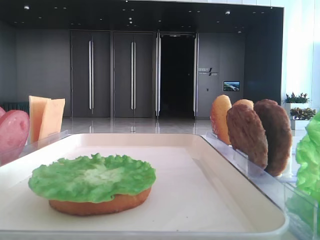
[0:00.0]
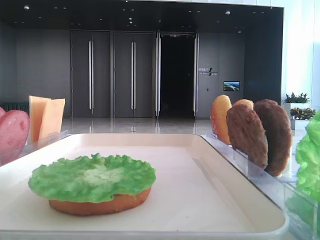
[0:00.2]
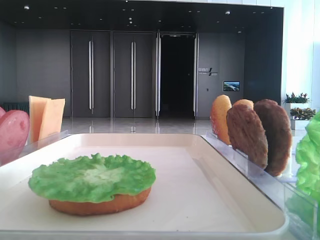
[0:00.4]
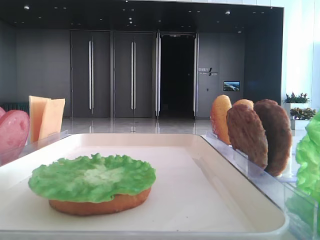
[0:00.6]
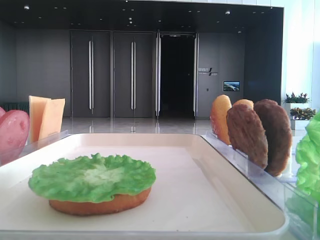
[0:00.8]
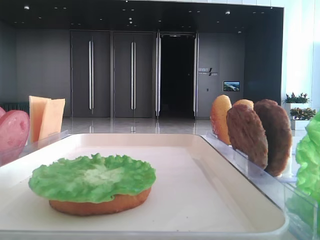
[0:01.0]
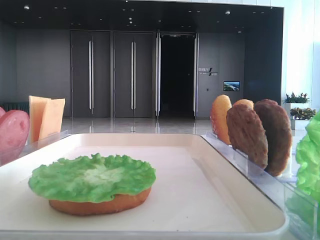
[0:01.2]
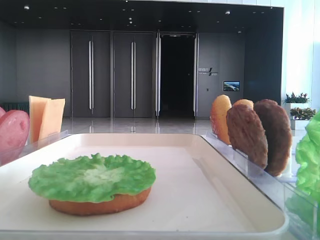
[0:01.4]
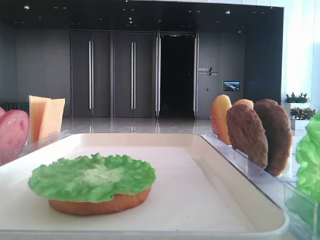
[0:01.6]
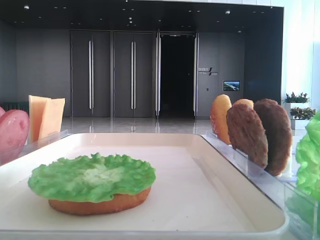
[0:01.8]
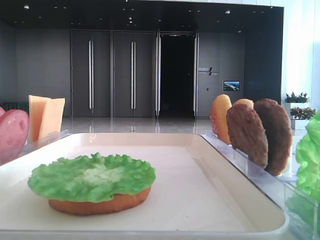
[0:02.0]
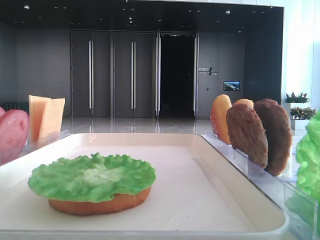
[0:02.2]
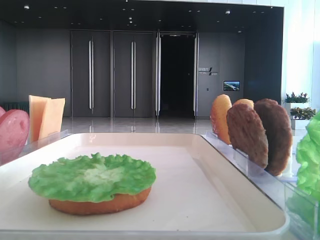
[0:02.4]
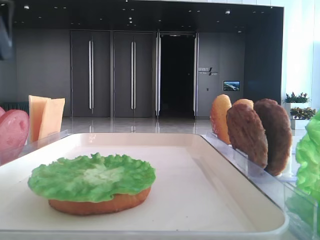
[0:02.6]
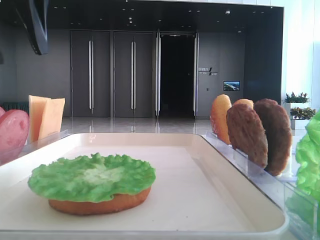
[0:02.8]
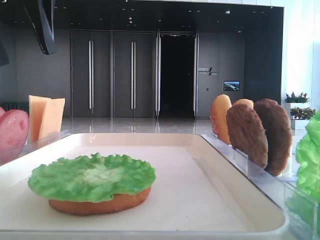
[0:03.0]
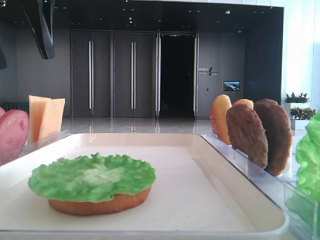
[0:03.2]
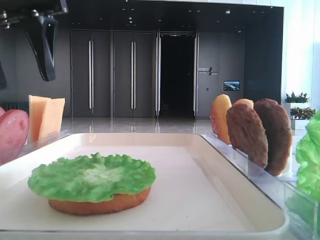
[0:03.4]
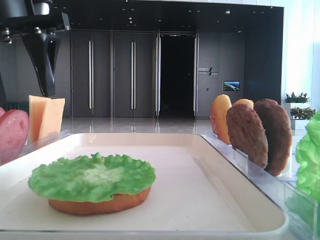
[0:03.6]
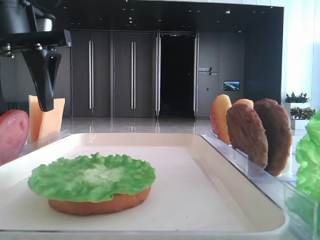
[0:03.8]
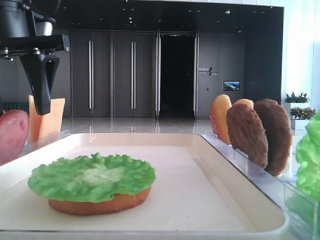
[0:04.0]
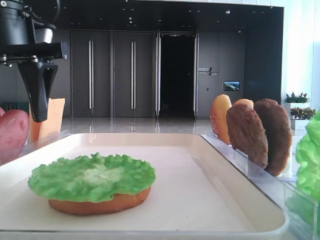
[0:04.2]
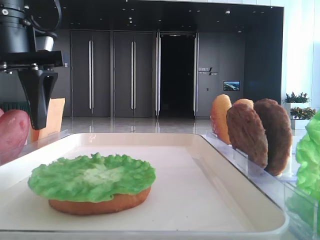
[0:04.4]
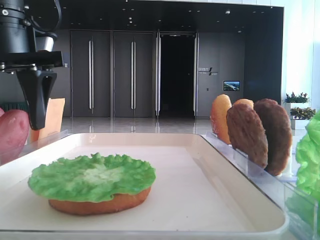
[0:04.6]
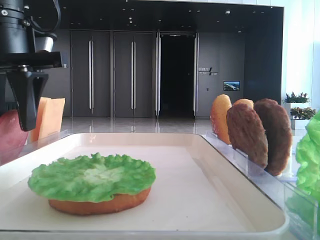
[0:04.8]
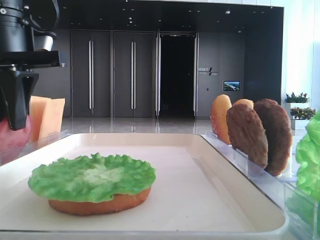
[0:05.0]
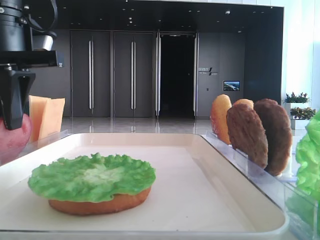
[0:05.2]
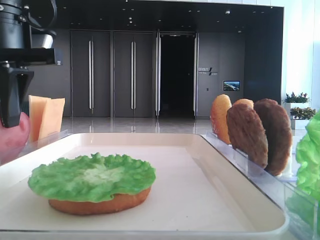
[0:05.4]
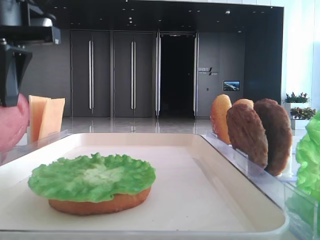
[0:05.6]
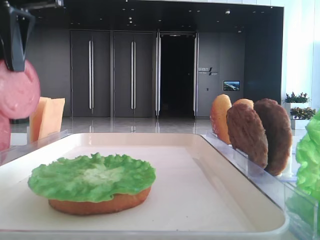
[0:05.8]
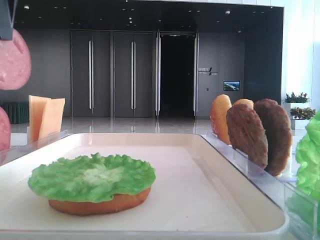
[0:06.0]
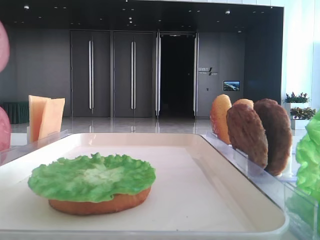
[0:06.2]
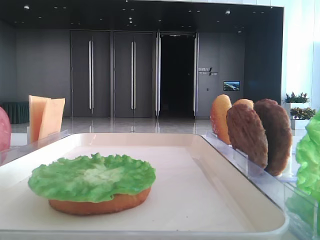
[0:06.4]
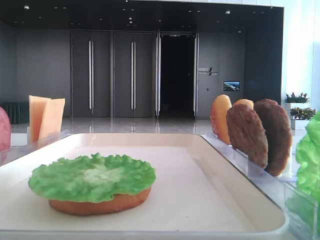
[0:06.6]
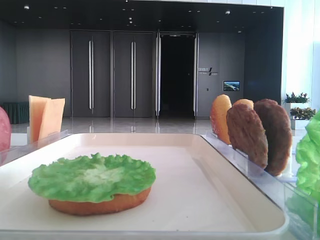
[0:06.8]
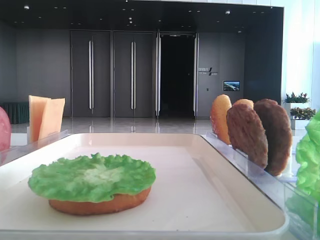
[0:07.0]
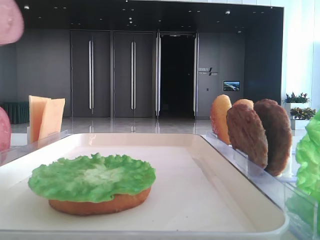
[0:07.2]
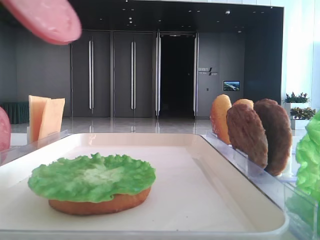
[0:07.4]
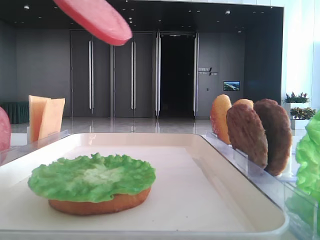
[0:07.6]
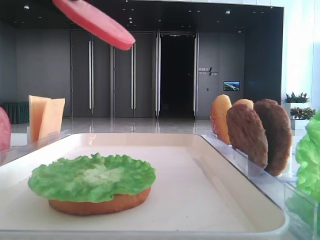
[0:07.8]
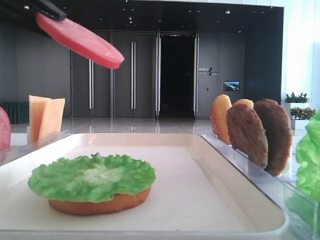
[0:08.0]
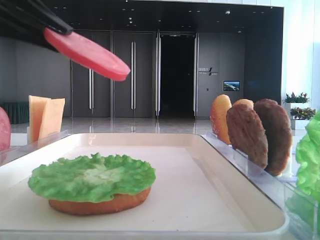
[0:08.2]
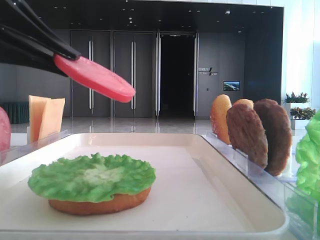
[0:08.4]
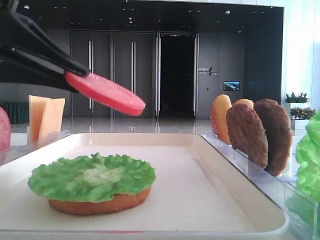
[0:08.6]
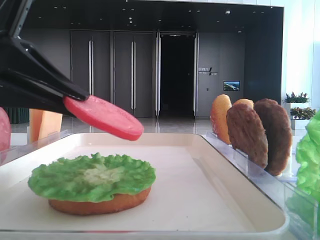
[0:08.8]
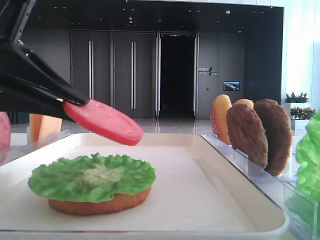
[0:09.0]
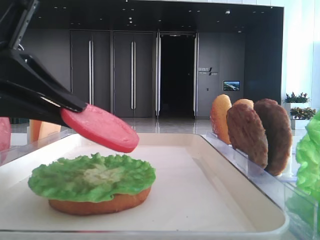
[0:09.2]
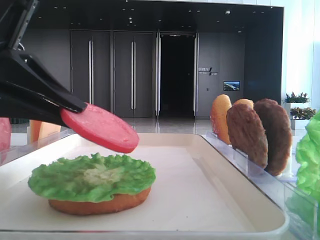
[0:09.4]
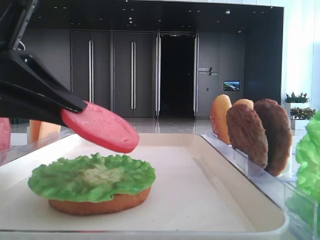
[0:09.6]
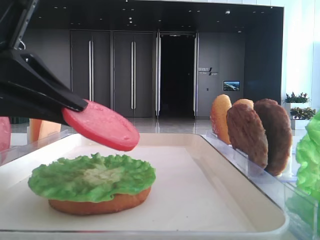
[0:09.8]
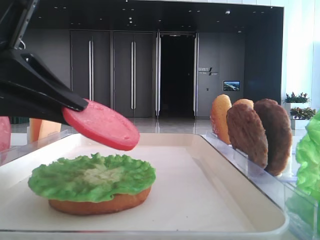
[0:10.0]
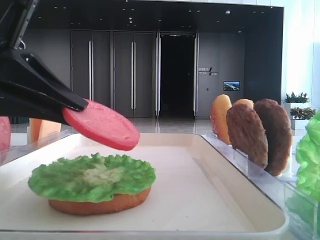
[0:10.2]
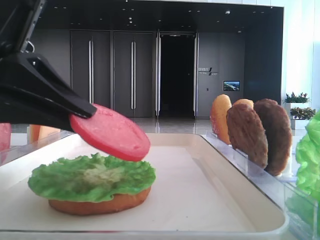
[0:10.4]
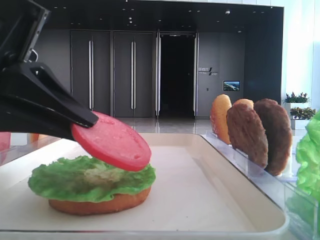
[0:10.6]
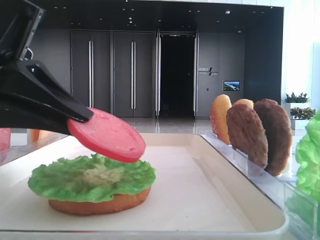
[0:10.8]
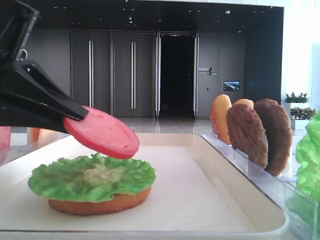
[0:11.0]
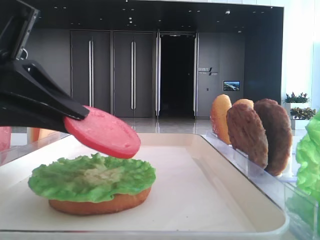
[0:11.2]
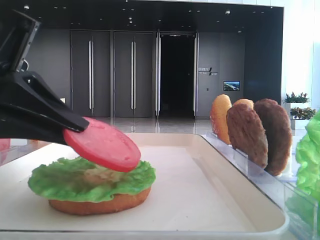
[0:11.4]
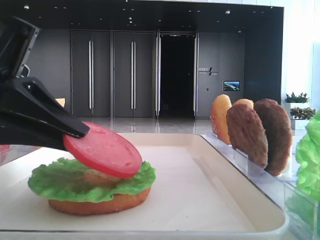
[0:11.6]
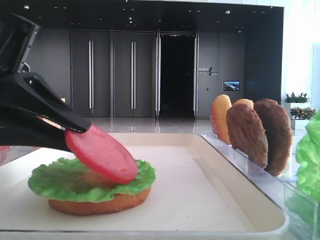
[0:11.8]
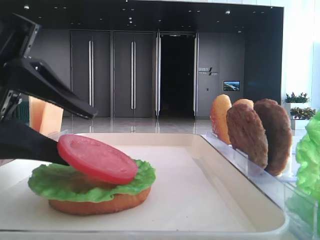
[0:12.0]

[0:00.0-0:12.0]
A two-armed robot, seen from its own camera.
Step, 0:00.0 to 0:05.2: Pick up the tomato slice with the left hand.
0:01.6 to 0:03.0: The left gripper heads to the right and forward, covering about 20 cm, and opens.
0:03.0 to 0:04.4: The left gripper shifts approximately 10 cm downward.
0:04.4 to 0:06.0: The left gripper heads upward, covering about 10 cm, and closes.
0:06.0 to 0:07.6: The left gripper moves backward, approximately 10 cm.
0:07.6 to 0:09.0: The left gripper moves downward, some 15 cm.
0:09.0 to 0:10.4: The grippers stay close to where they were, moving slightly.
0:10.4 to 0:12.0: The left gripper opens.

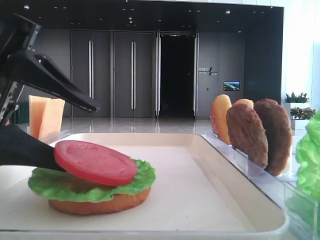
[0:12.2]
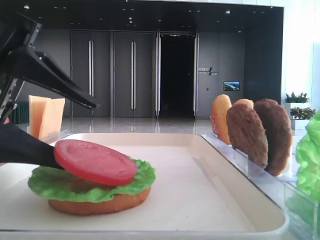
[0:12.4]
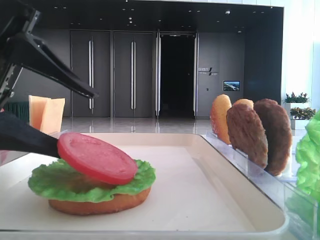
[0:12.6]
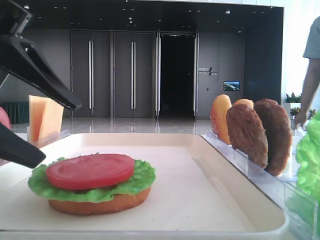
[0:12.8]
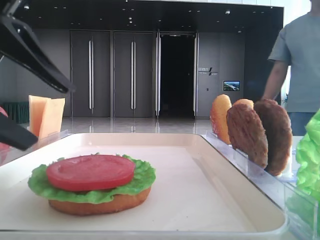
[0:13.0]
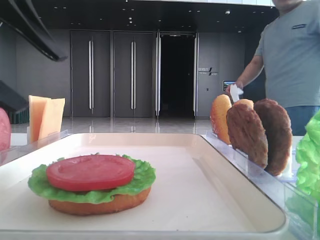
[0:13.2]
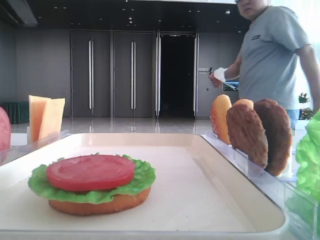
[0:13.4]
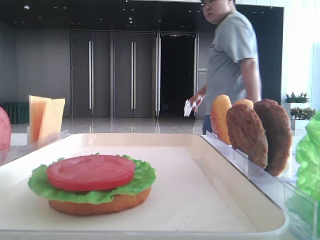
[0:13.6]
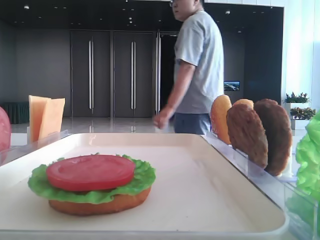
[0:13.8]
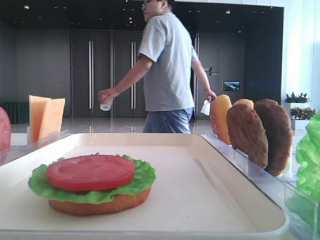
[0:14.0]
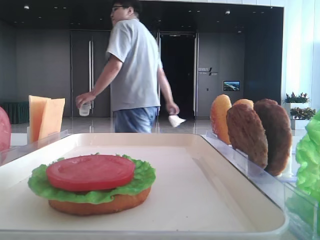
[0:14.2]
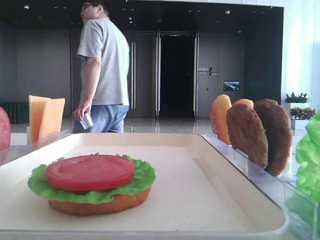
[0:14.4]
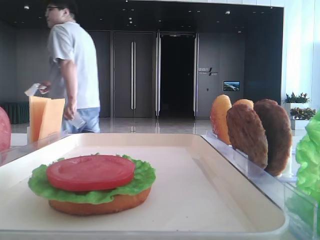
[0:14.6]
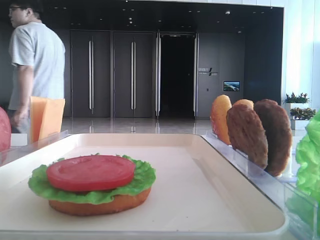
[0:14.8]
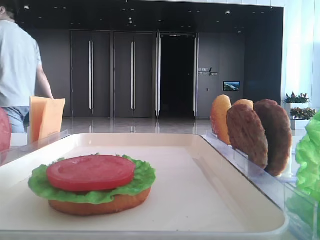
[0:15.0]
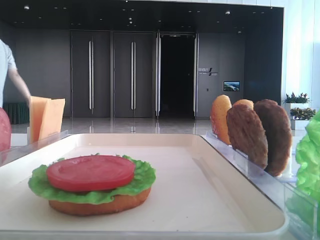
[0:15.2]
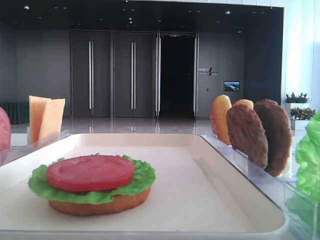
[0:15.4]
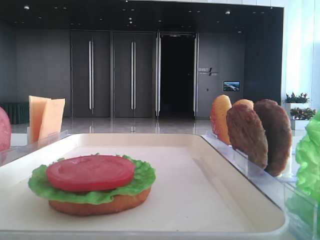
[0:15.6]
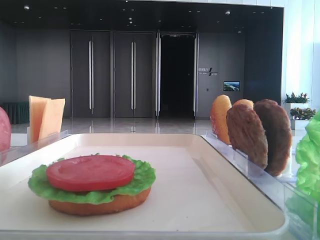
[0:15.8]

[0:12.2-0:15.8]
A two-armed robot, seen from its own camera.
0:12.2 to 0:14.0: The left gripper goes about 20 cm upward and to the left.
0:14.0 to 0:15.8: The left gripper travels backward by roughly 20 cm.

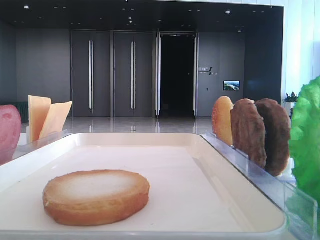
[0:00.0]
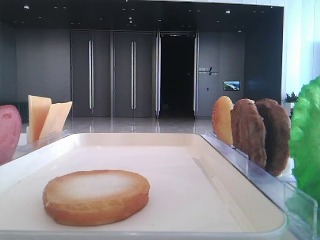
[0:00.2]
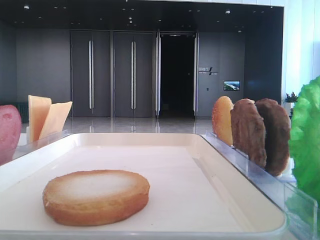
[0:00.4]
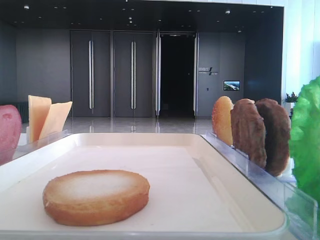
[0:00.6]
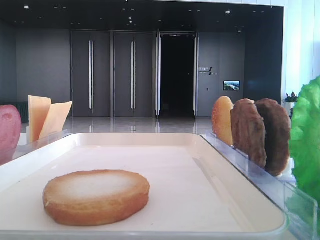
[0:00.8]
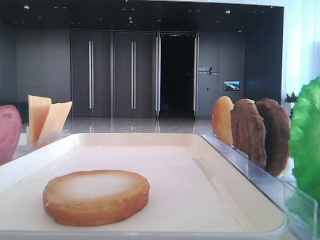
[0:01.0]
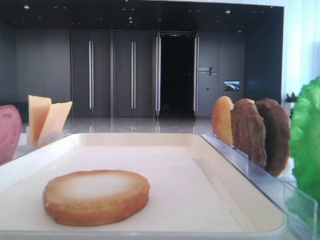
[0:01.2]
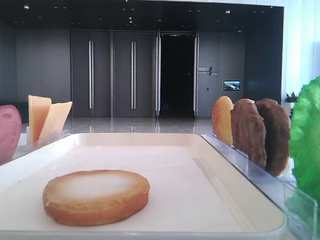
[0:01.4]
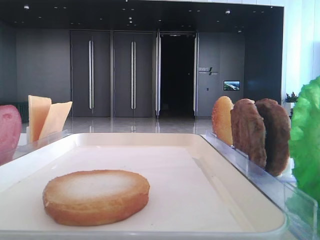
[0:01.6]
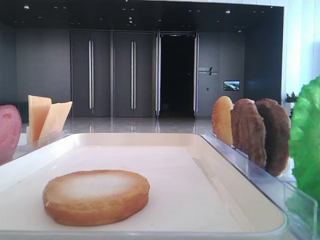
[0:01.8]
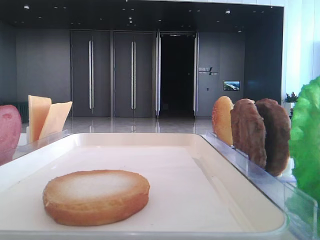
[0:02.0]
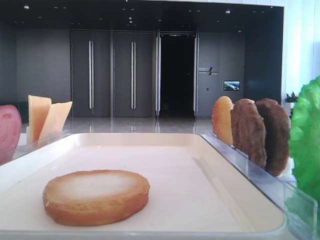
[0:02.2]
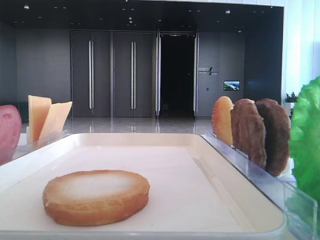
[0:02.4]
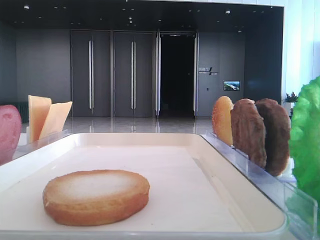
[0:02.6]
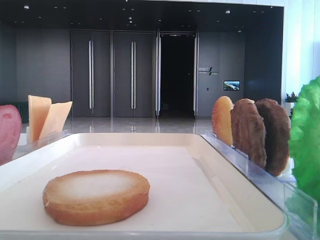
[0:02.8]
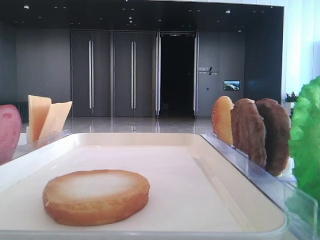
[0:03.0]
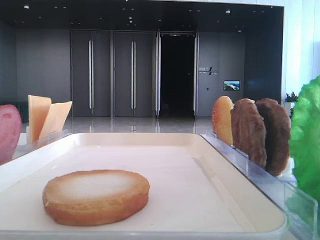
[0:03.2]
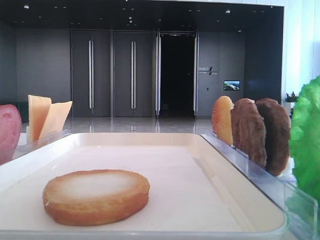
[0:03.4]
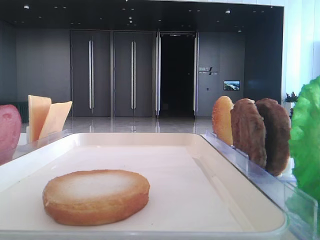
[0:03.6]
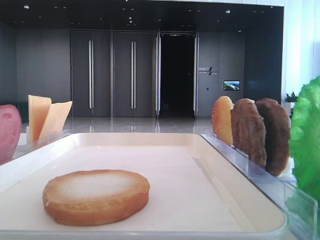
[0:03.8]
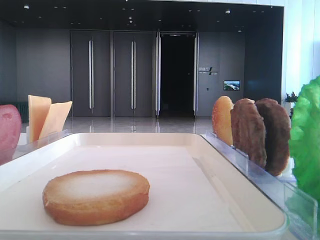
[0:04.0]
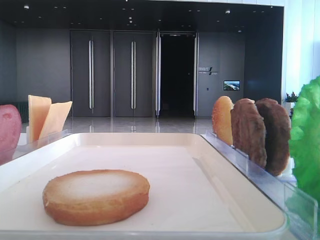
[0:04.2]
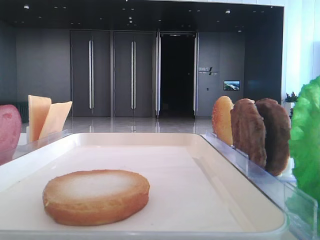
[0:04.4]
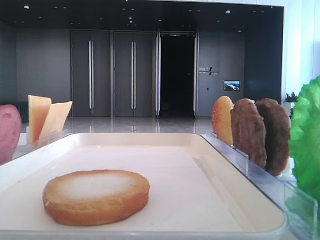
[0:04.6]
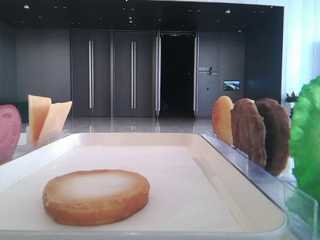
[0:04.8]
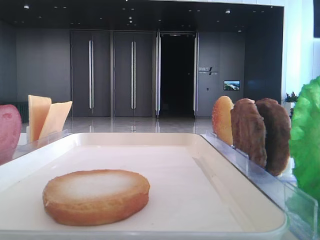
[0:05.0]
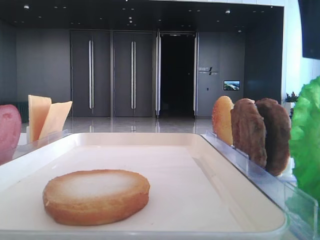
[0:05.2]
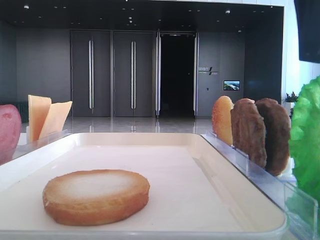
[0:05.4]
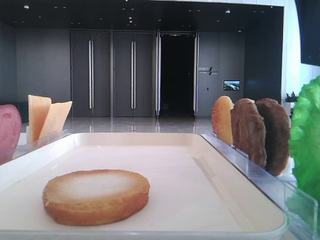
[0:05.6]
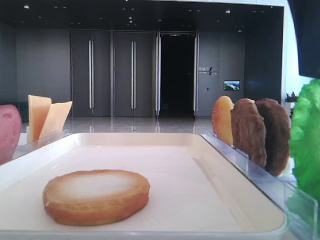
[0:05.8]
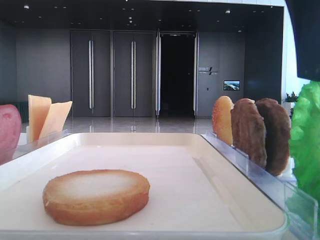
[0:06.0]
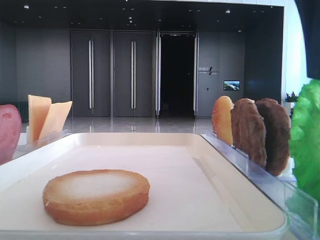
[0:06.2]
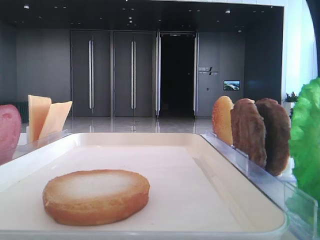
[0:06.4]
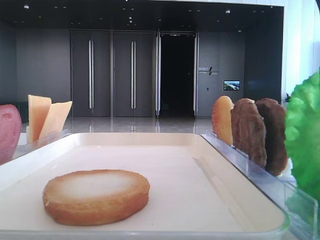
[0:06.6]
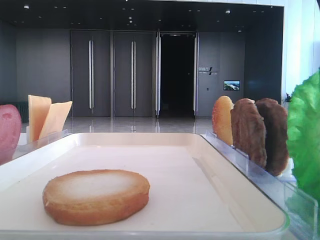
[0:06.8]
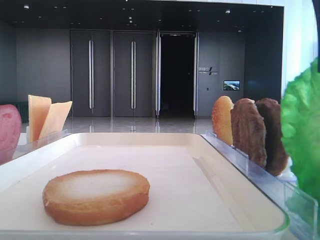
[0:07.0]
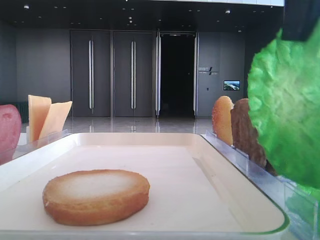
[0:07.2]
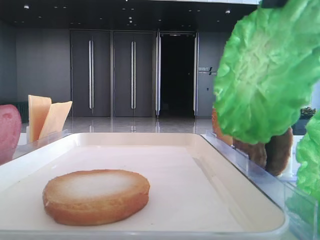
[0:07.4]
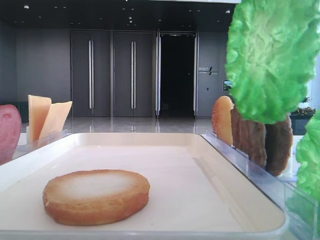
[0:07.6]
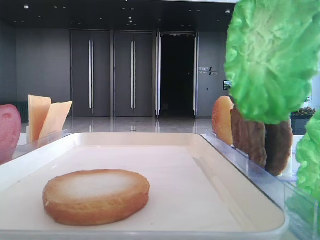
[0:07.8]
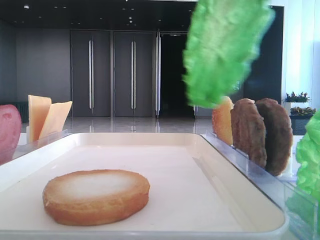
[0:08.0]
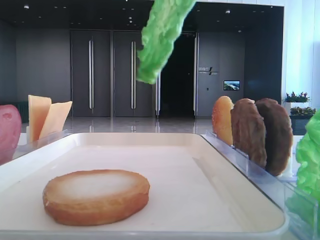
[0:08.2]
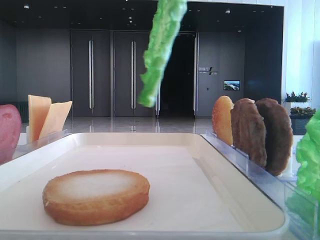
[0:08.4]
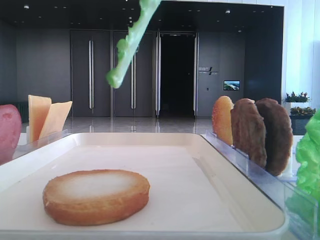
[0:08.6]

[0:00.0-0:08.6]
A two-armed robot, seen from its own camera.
Step, 0:00.0 to 0:06.8: Grab the lettuce leaf with the right hand.
0:04.4 to 0:05.8: The right gripper goes some 5 cm to the left.
0:05.8 to 0:07.2: The right gripper closes up.
